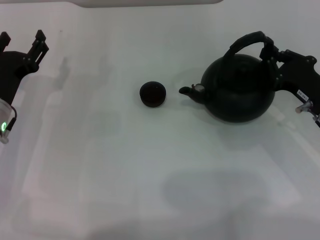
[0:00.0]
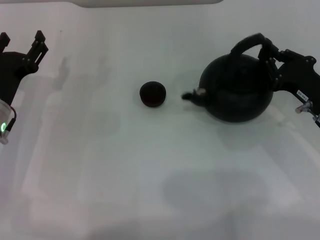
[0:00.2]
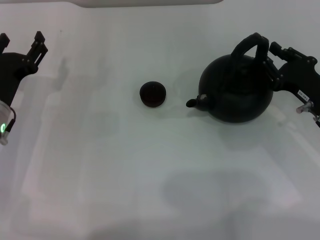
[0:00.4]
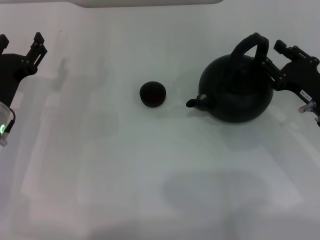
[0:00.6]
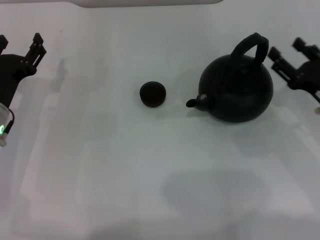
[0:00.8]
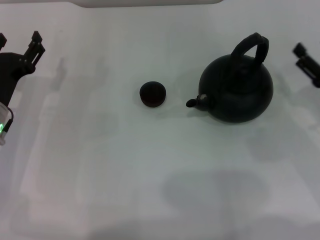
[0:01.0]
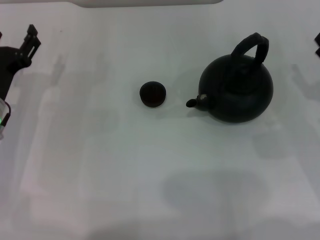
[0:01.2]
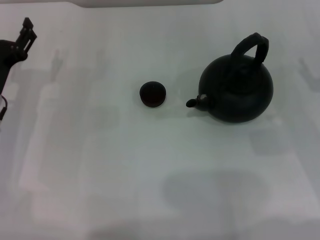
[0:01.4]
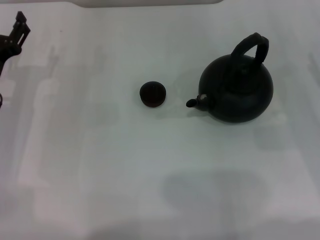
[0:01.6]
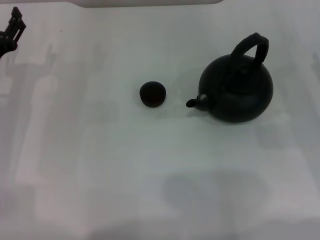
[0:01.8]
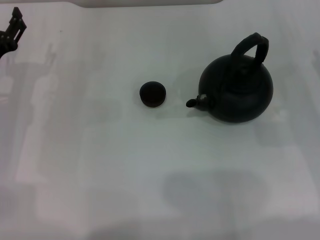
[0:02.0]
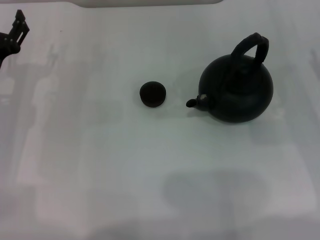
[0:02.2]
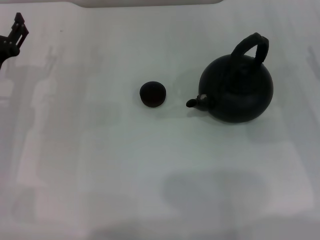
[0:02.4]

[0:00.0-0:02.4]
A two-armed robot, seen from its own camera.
Task of the whole recording: Grasp the handle of the teapot with one hand and pour tea into the teacup.
0:00.0 to 0:01.2: The right gripper shifts approximately 5 cm to the right, and opens.
0:01.2 to 0:02.4: The grippers make only small movements.
